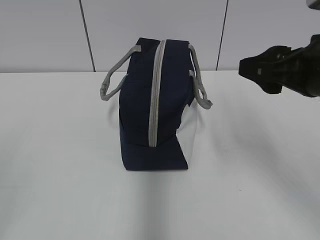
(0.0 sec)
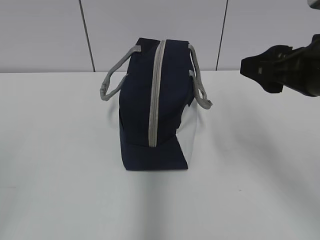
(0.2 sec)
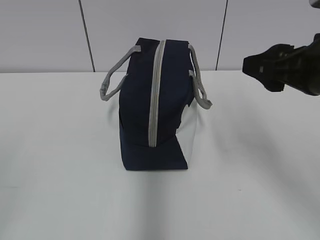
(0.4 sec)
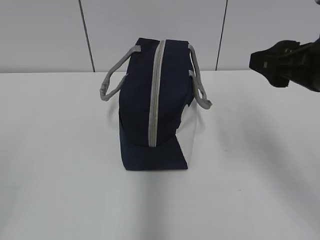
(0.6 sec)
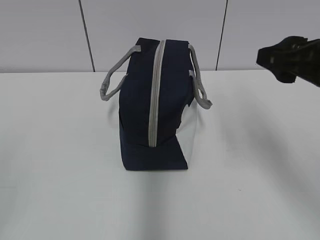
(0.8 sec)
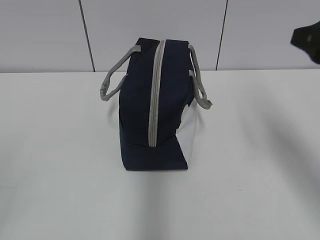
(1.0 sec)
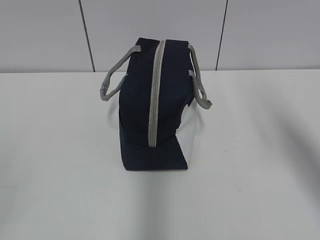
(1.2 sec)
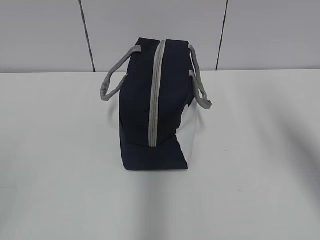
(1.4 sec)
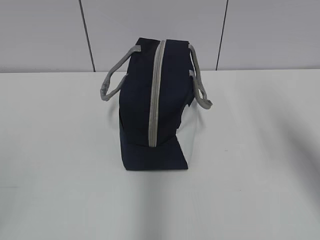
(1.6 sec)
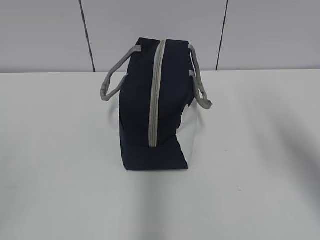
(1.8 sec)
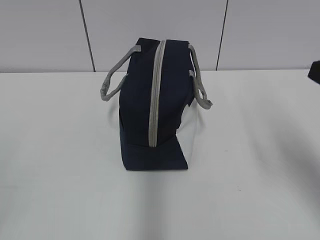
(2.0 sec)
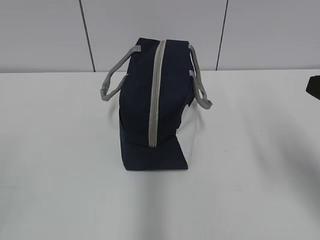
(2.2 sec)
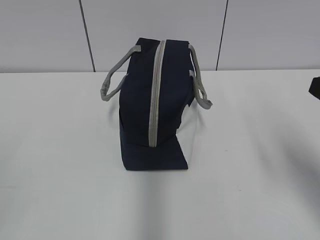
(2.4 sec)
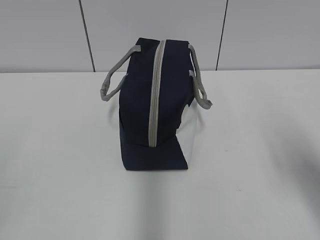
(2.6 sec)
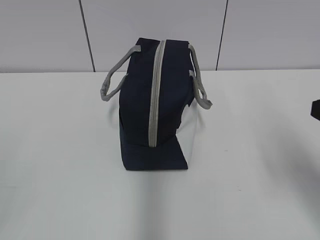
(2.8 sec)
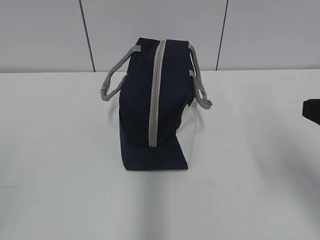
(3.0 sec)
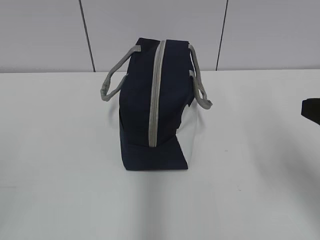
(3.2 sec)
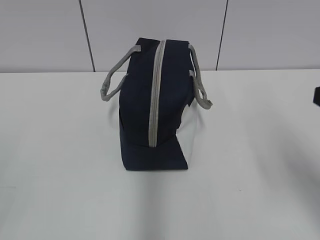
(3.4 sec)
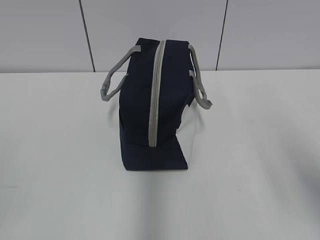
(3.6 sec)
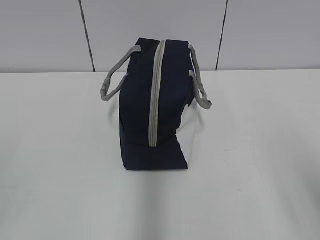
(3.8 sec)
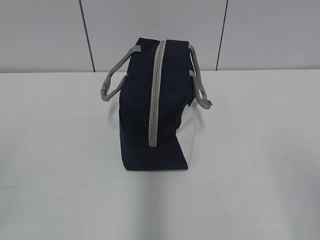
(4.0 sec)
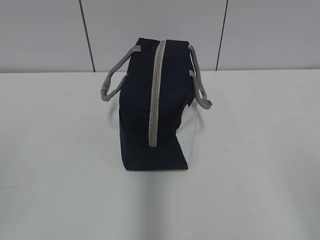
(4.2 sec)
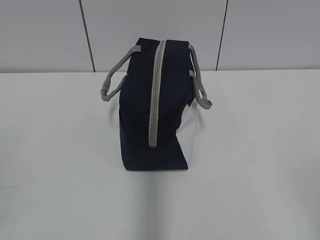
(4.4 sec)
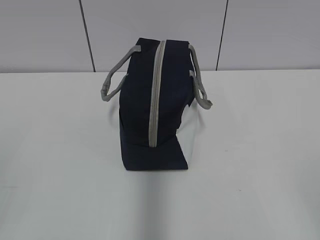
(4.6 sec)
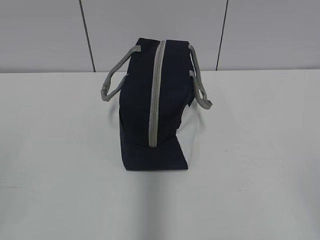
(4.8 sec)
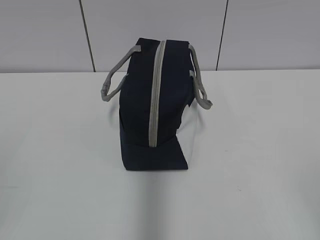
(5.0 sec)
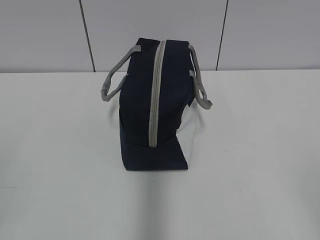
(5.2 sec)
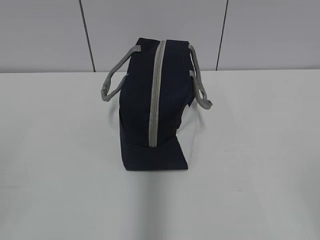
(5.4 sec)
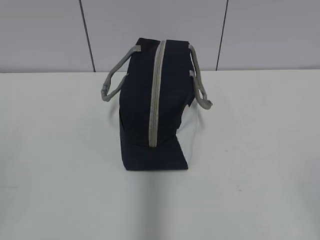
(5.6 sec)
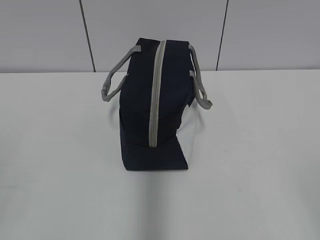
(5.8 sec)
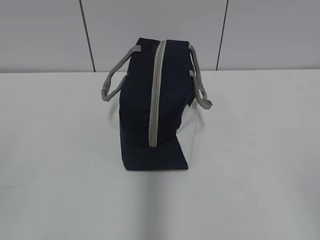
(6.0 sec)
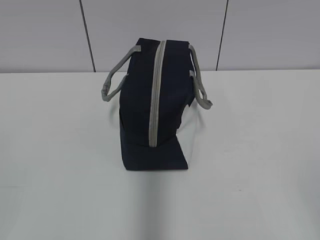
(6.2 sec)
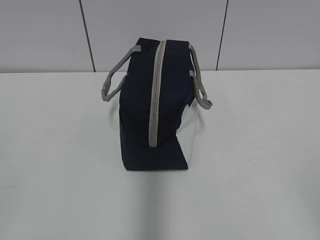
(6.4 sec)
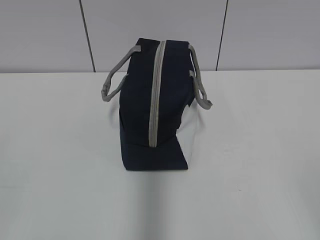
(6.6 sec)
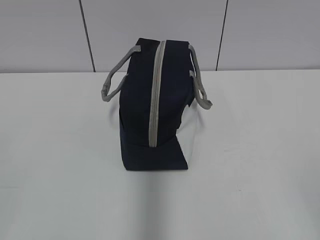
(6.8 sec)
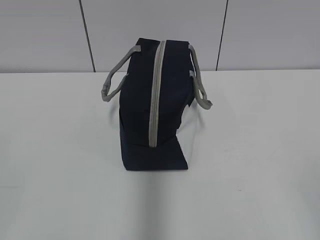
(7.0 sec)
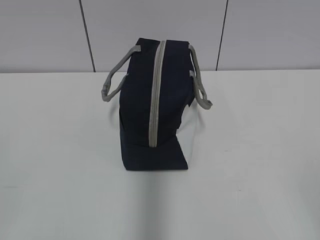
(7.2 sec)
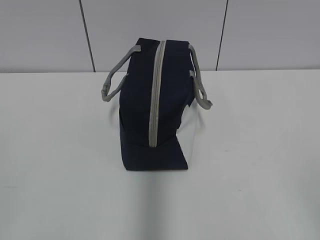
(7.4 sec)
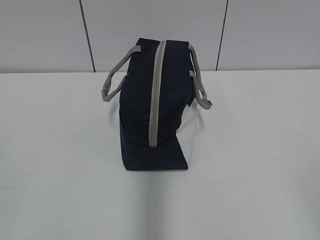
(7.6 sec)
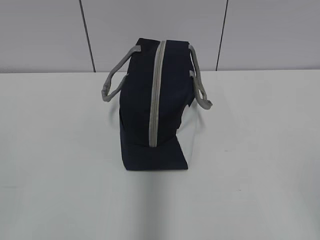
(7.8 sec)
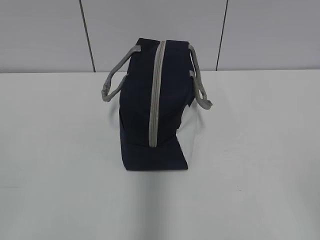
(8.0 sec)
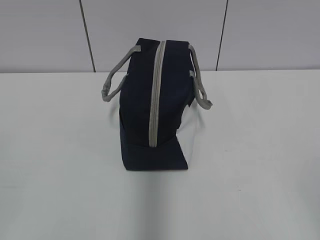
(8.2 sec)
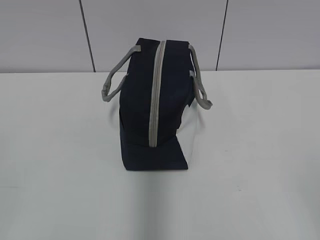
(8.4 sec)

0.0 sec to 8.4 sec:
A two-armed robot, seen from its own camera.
0.0 sec to 1.4 sec: The right gripper moves to the right and upward, about 10 cm.
1.4 sec to 2.8 sec: The right gripper heads downward, covering about 10 cm.
2.8 sec to 4.2 sec: The right gripper heads backward, covering roughly 15 cm.
7.0 sec to 8.4 sec: Neither gripper changes place.
